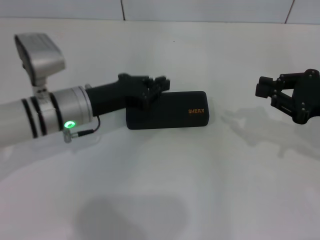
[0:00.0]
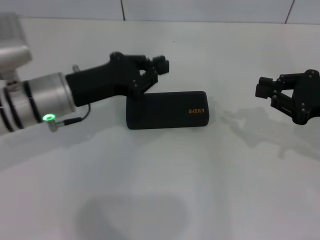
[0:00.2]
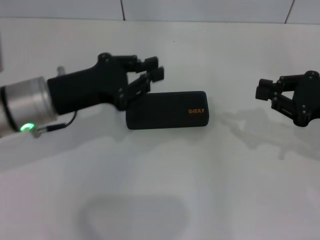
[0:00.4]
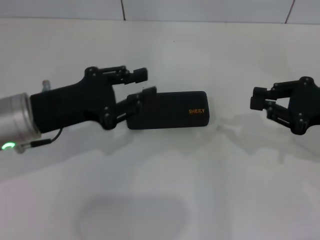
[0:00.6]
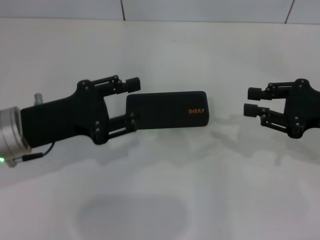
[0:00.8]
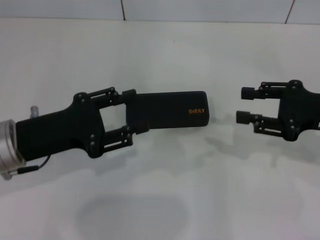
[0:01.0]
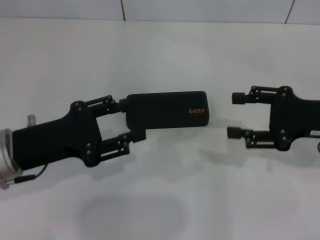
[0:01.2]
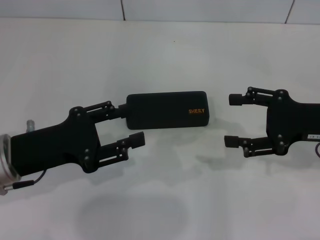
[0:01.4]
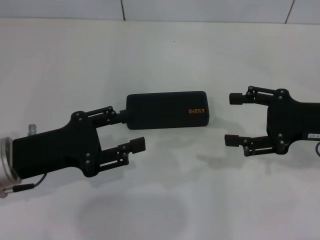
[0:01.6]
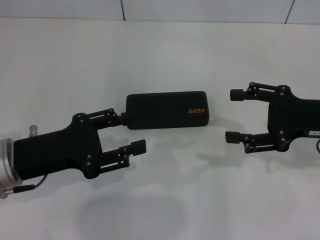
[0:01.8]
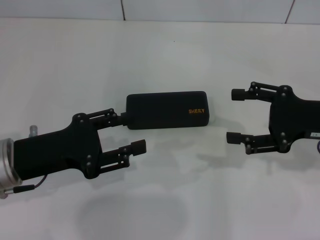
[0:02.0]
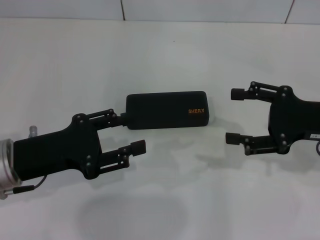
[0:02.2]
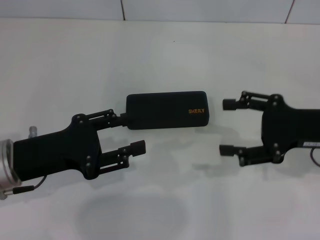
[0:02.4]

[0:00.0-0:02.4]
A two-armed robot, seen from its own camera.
0:00.0 to 0:01.2: The right gripper opens its fingers, while the left gripper travels backward and to the left by about 10 cm, and opens.
0:01.2 to 0:02.4: The right gripper opens up.

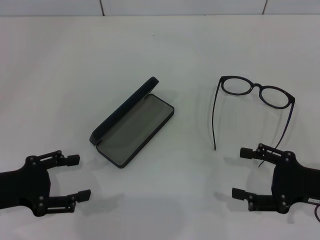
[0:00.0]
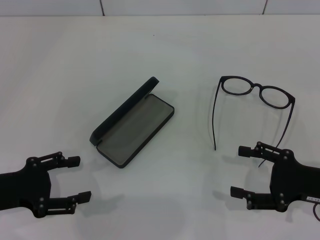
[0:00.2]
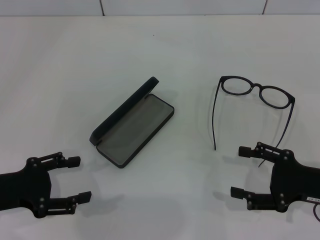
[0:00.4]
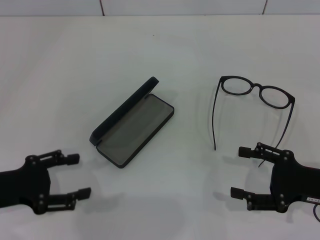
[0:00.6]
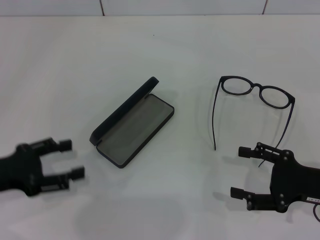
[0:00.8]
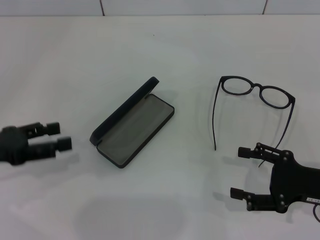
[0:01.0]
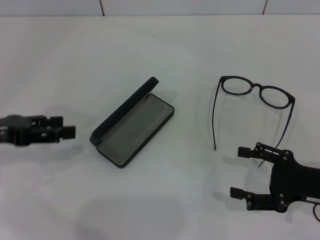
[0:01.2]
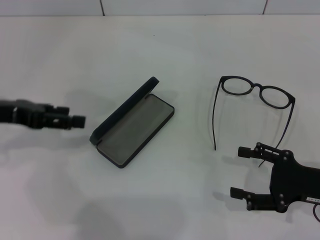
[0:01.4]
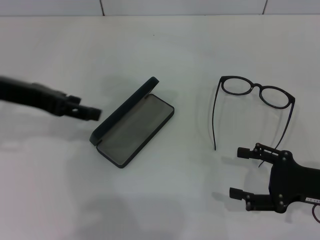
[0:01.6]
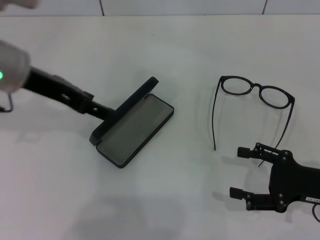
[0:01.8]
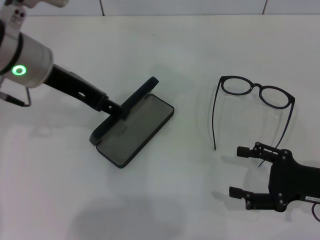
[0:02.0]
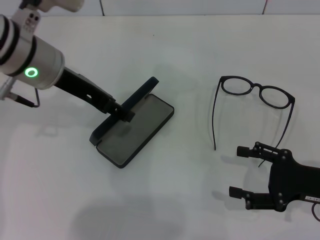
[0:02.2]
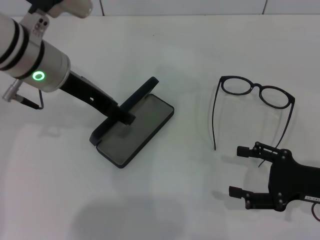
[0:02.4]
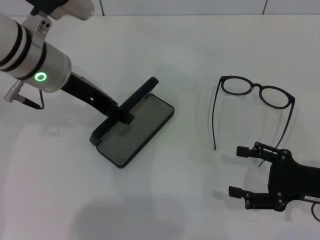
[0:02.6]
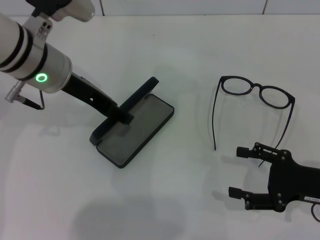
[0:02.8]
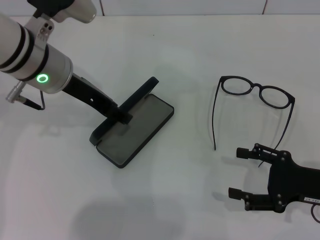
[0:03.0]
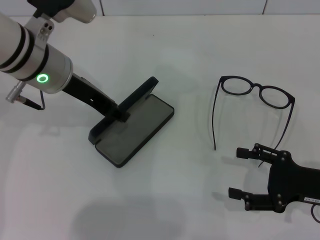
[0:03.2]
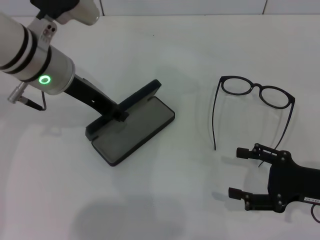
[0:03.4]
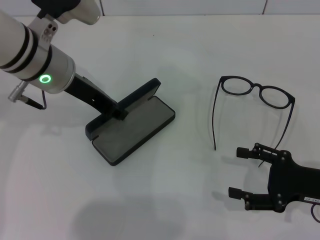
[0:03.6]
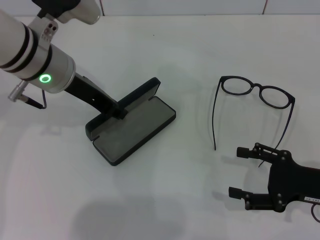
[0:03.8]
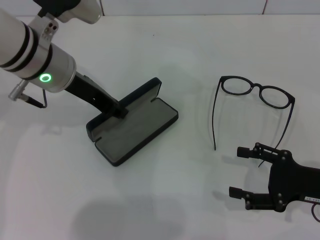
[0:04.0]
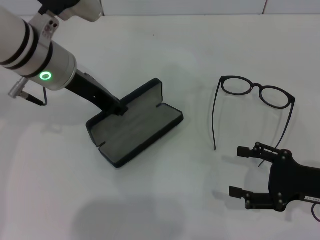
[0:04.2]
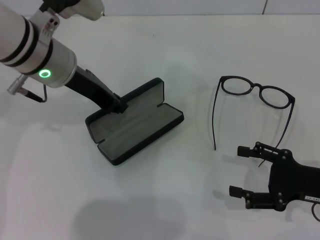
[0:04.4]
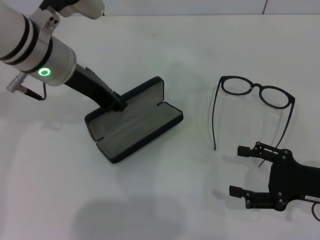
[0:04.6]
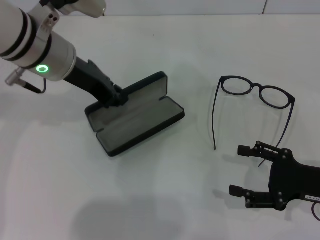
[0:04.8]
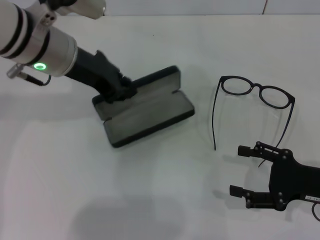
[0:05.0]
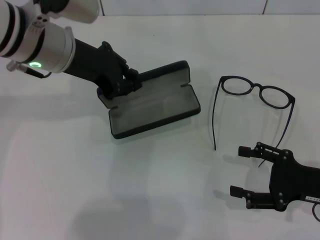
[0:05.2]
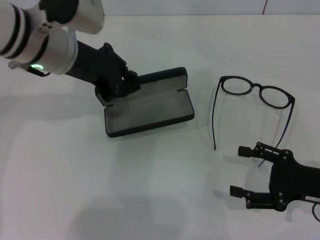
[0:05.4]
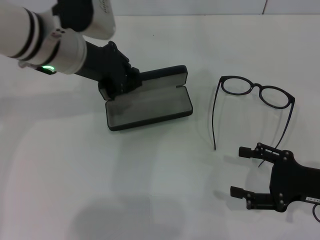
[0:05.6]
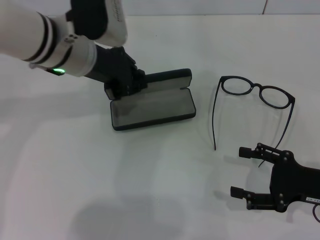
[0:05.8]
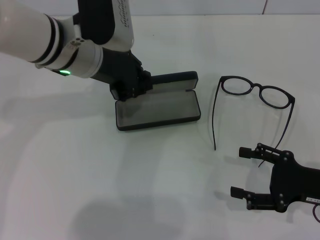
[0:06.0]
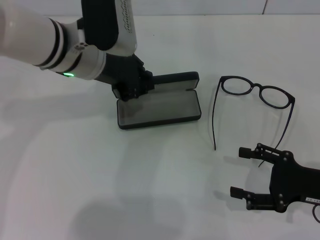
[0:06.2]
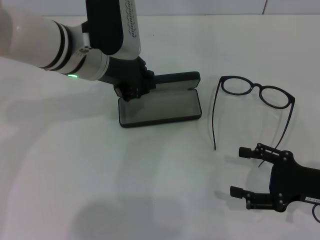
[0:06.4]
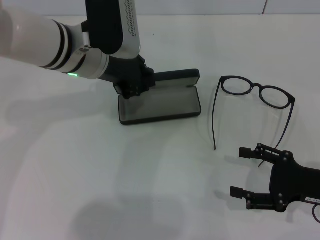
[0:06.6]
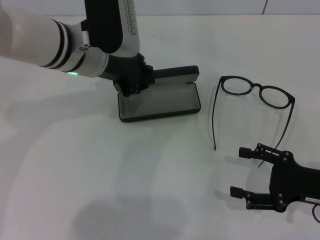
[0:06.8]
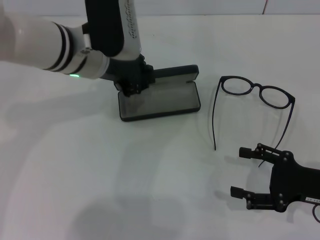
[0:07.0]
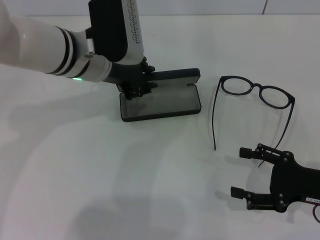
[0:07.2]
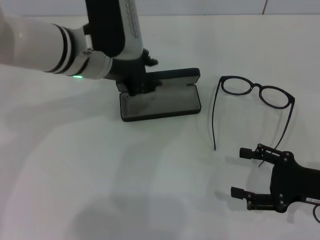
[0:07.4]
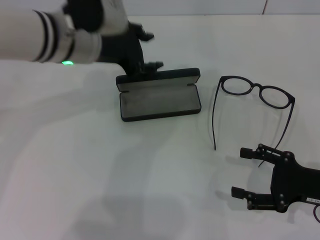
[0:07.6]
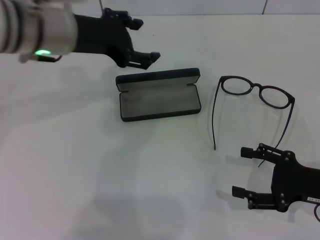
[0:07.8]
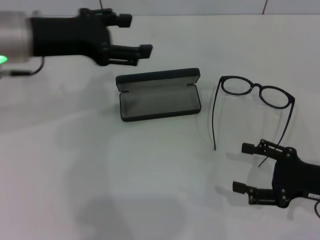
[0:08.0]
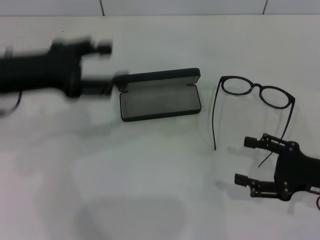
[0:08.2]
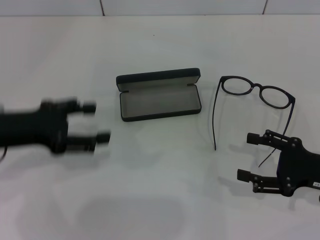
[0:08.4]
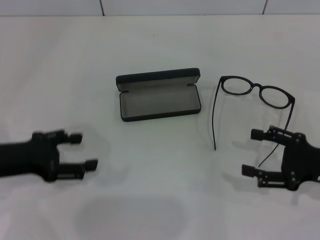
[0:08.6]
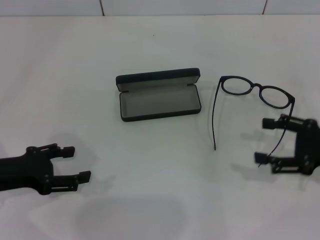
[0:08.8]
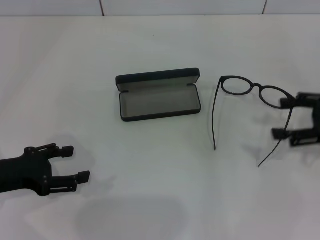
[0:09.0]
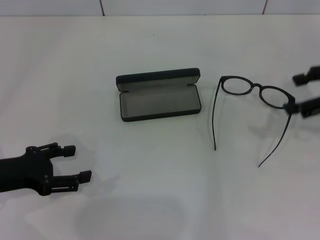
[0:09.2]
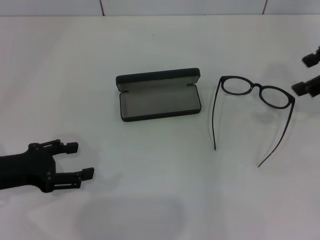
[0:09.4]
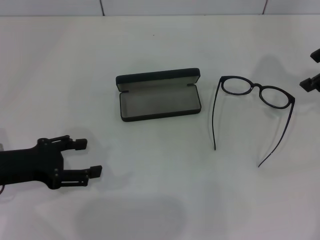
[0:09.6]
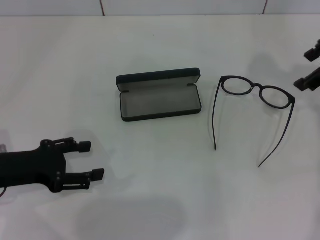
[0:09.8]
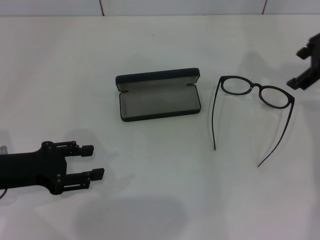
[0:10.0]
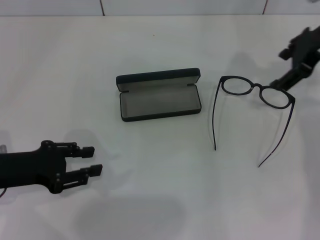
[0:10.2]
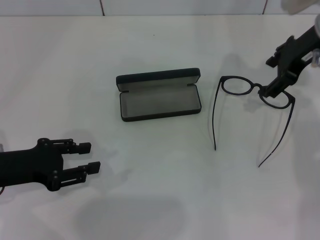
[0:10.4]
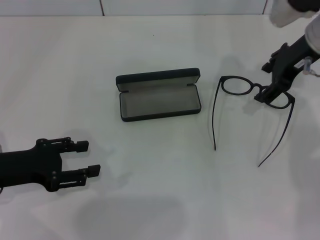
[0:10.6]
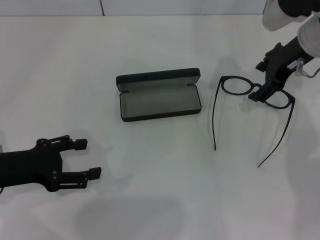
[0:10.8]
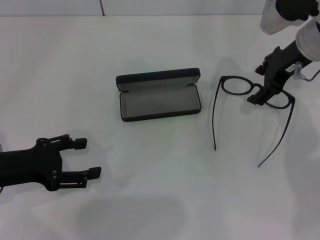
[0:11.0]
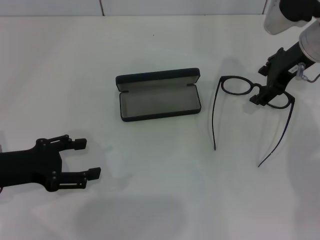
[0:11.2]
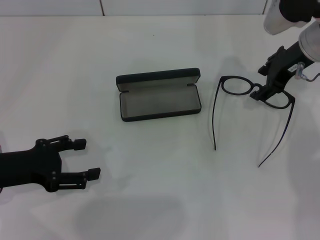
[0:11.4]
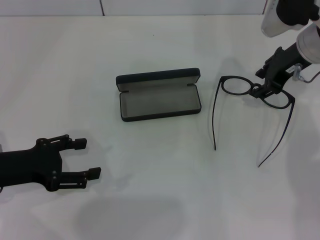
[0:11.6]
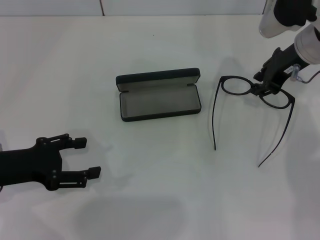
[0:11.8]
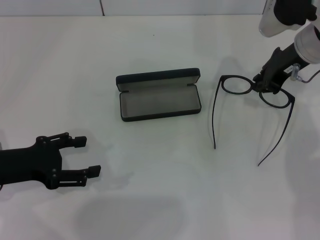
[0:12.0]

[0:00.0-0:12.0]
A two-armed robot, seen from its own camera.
Step, 0:00.0 to 0:04.4: Grab the glasses case with your left hand.
Step, 0:04.6 to 0:07.0: Place the glasses case in the center of the table with your left hand.
0:00.0 to 0:01.6: The left gripper goes about 15 cm forward and upward.
0:01.6 to 0:03.0: The left gripper travels to the right by some 10 cm.
0:03.0 to 0:04.4: The left gripper closes up.
0:06.0 to 0:07.6: There are only small adjustments of the grippers.
0:07.6 to 0:09.0: The right gripper is displaced upward and forward by about 10 cm. The left gripper goes approximately 25 cm to the left, backward and downward, and opens up.
0:09.0 to 0:10.4: The right gripper shifts approximately 20 cm forward, to the left and upward. The left gripper closes up.
0:10.4 to 0:12.0: The left gripper opens up. Meanwhile the right gripper closes.

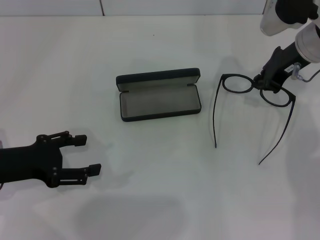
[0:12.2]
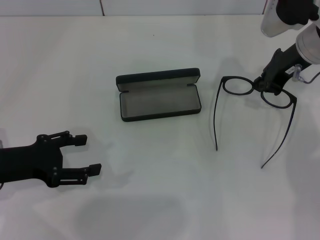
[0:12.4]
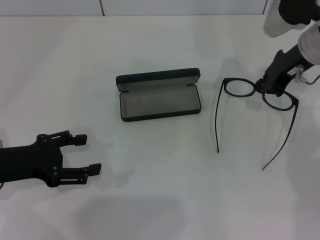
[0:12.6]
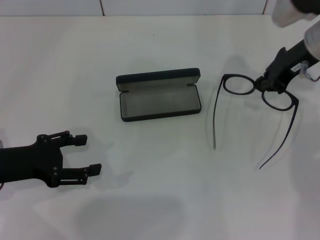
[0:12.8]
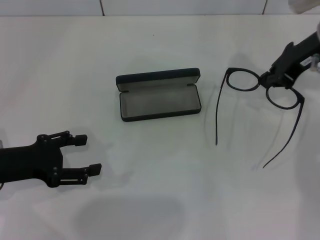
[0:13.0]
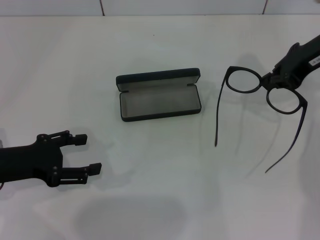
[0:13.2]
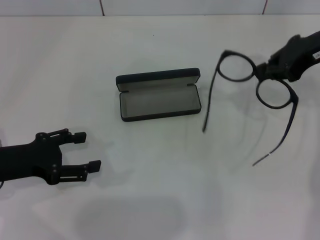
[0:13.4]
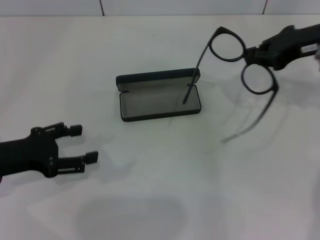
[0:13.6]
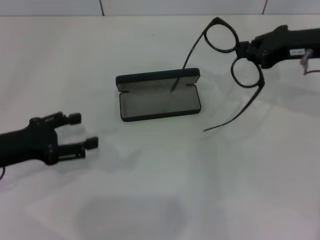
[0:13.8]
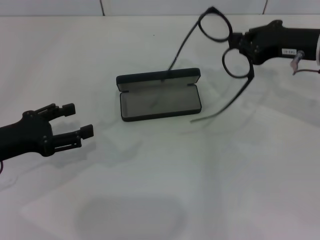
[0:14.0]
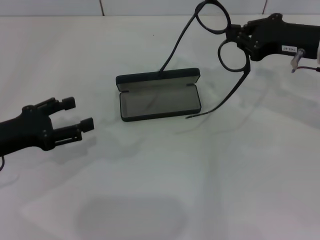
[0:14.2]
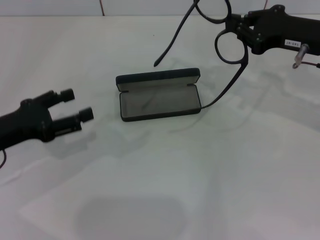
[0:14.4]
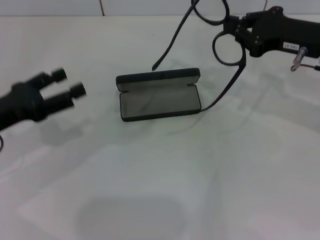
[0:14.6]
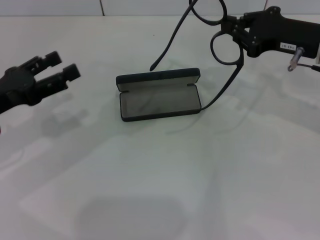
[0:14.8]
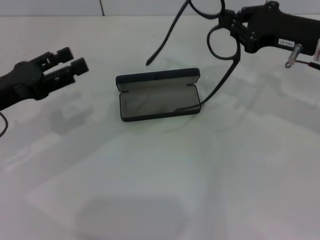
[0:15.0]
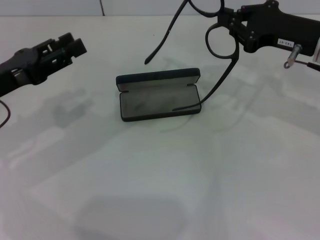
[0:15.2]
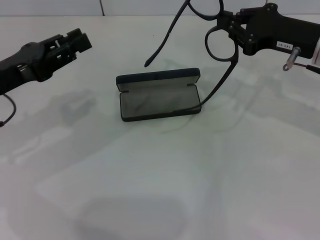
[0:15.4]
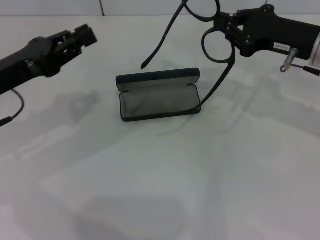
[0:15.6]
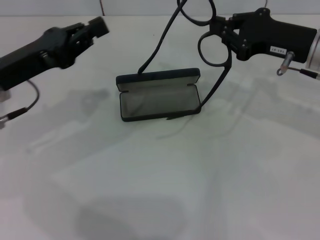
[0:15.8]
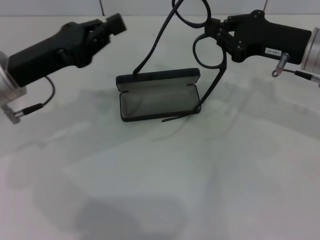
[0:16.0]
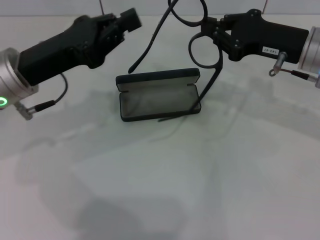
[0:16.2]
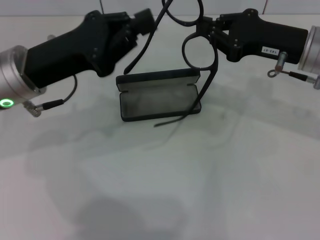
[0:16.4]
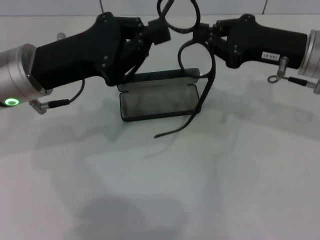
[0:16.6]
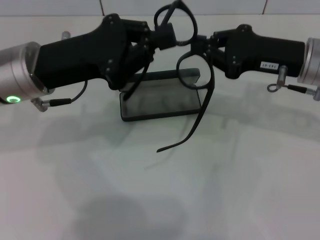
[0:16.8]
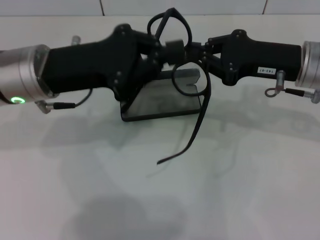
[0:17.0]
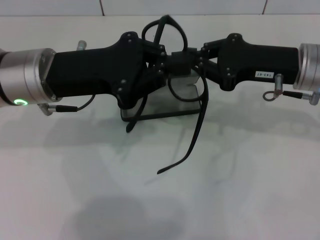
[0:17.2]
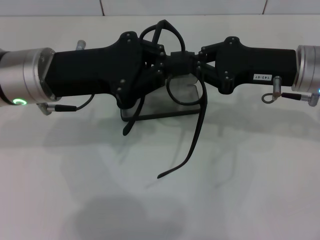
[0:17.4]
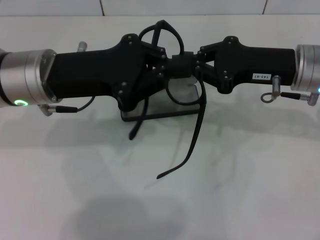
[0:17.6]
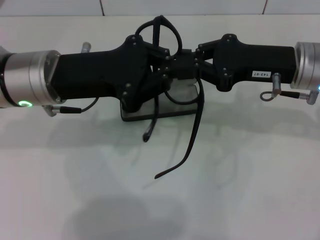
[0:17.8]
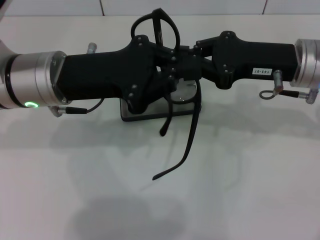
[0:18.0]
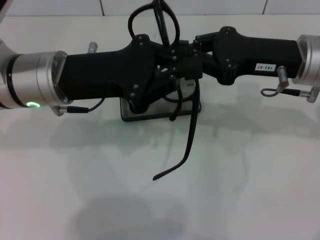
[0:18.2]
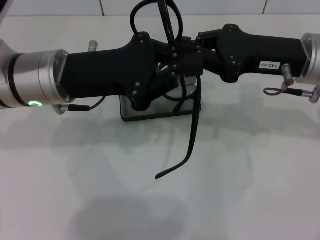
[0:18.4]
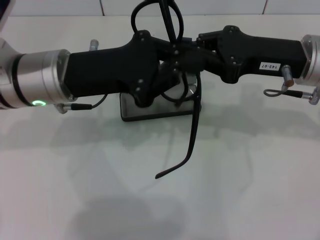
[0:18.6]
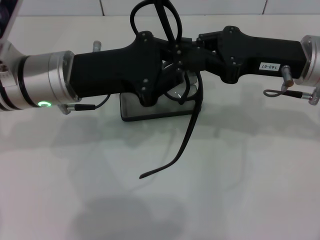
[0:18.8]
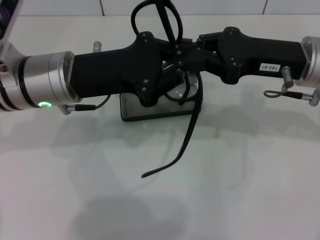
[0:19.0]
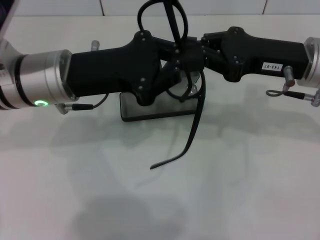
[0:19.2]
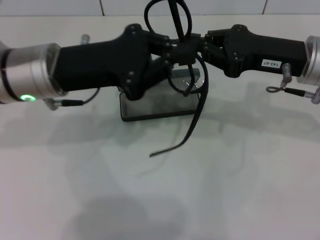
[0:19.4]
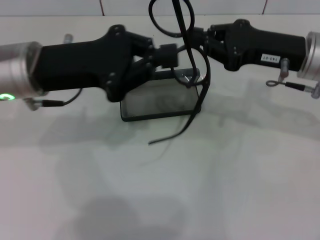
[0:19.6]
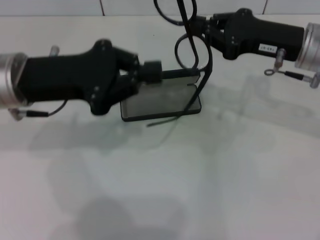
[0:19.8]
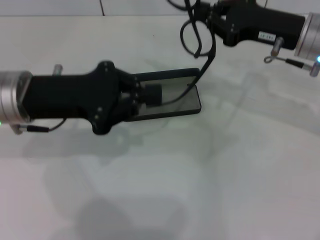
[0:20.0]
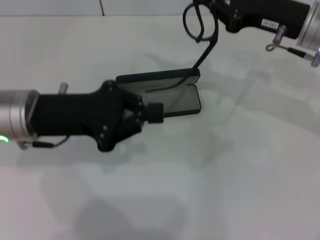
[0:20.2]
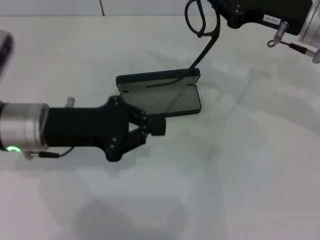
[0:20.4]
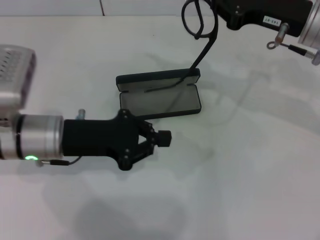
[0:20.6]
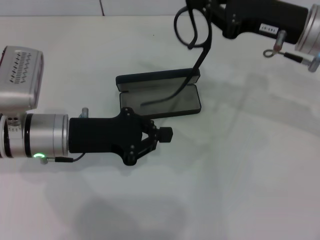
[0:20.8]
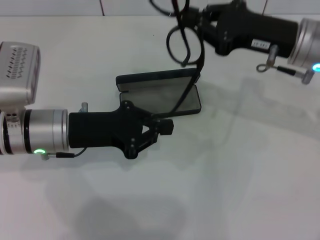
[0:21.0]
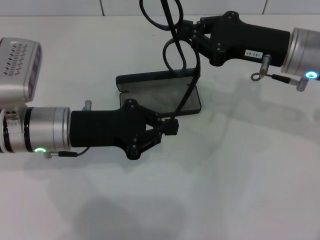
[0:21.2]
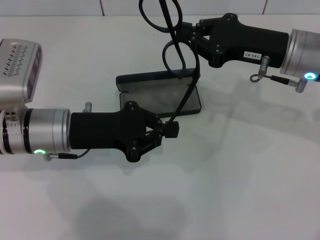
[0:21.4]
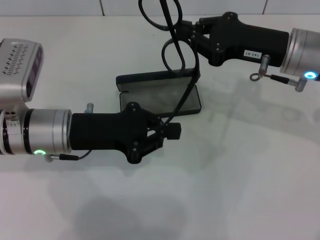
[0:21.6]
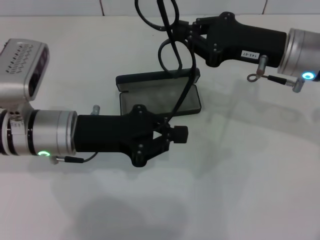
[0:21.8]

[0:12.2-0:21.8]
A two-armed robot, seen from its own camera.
0:12.2 to 0:13.8: The right gripper shifts by some 5 cm.
0:13.8 to 0:15.4: The left gripper ends up roughly 5 cm from where it was.
0:15.4 to 0:17.0: The left gripper heads to the right, covering roughly 10 cm, and closes up.
0:17.0 to 0:18.6: The grippers move only a little.
0:18.6 to 0:20.2: The left gripper ends up about 5 cm from where it was.
